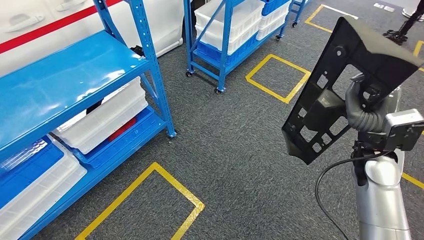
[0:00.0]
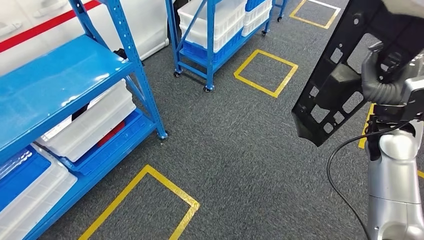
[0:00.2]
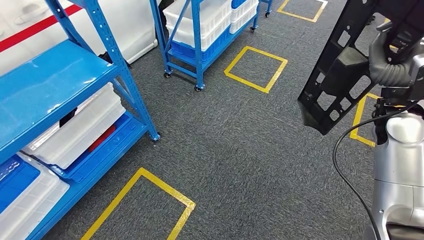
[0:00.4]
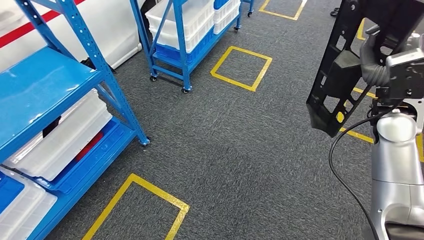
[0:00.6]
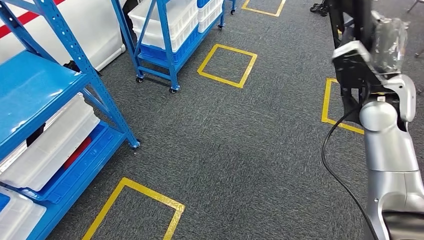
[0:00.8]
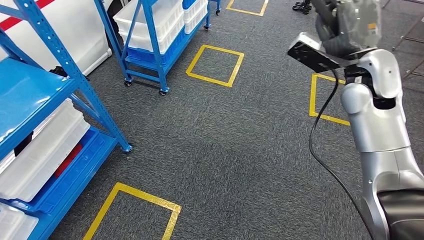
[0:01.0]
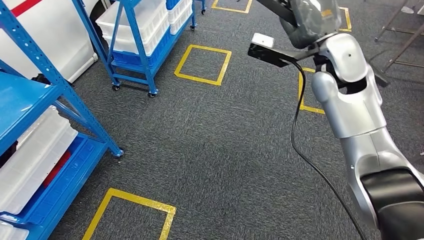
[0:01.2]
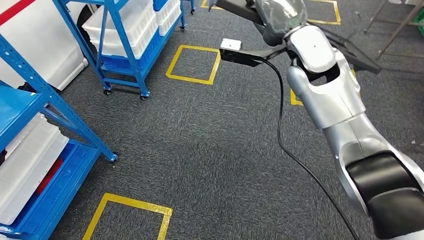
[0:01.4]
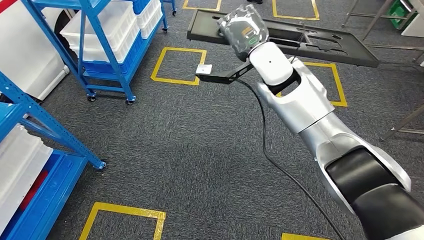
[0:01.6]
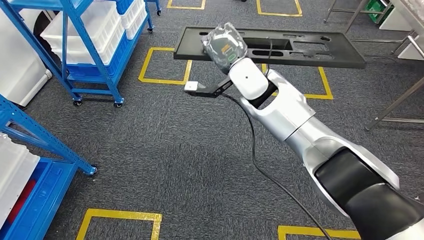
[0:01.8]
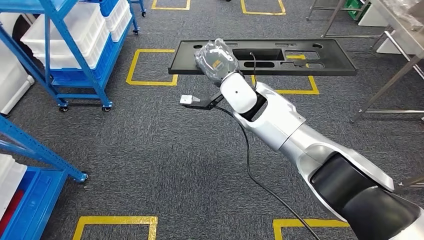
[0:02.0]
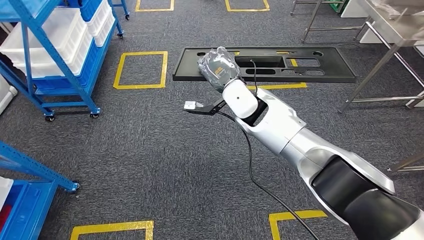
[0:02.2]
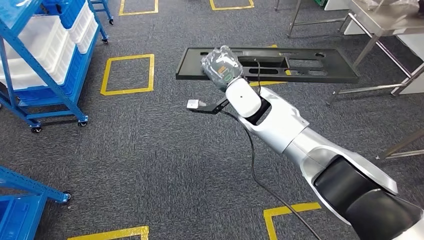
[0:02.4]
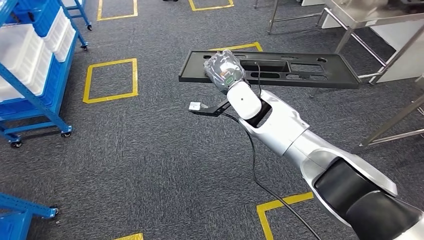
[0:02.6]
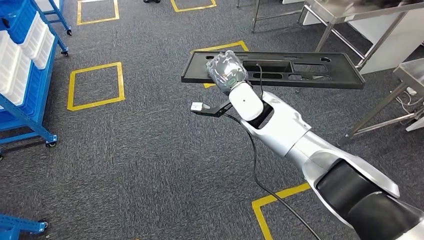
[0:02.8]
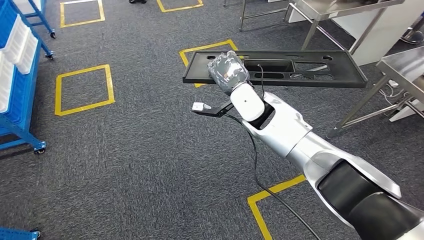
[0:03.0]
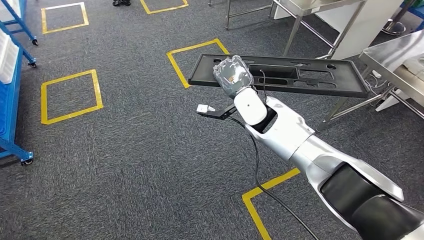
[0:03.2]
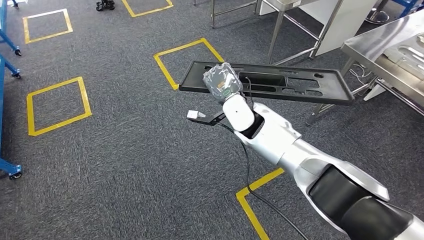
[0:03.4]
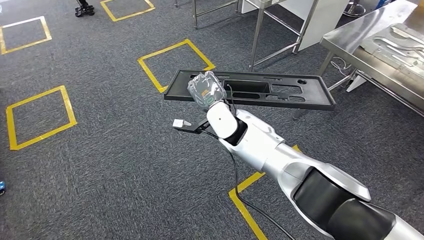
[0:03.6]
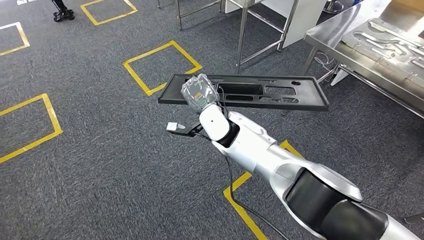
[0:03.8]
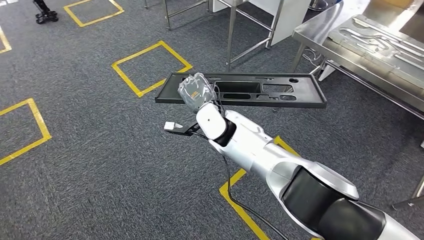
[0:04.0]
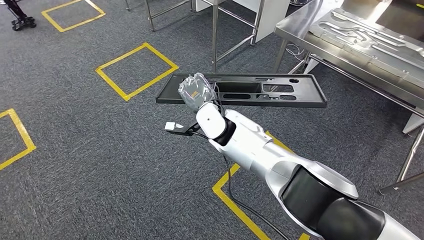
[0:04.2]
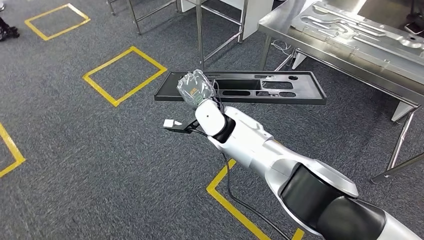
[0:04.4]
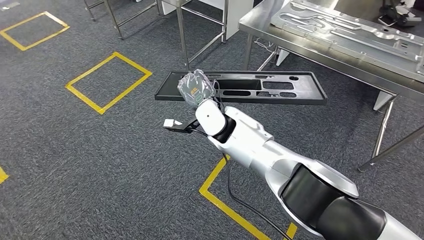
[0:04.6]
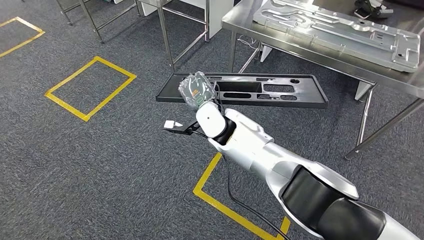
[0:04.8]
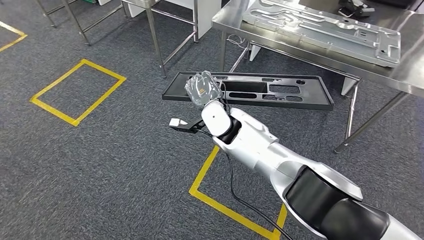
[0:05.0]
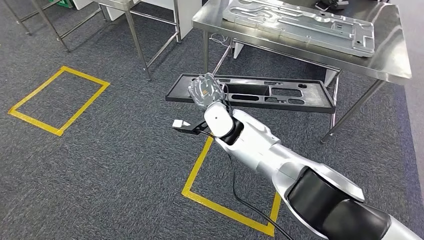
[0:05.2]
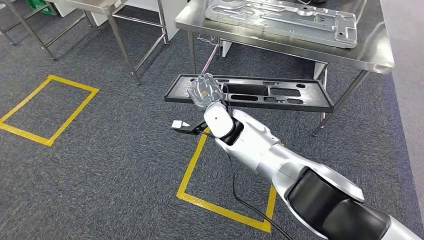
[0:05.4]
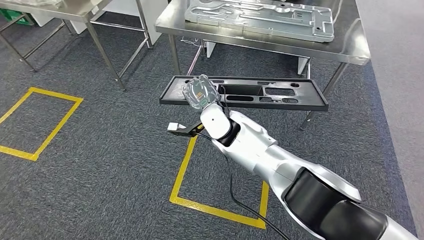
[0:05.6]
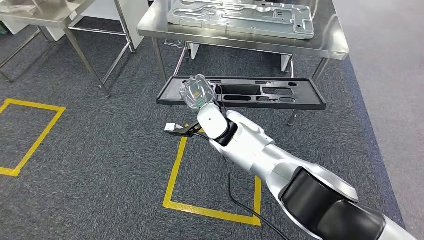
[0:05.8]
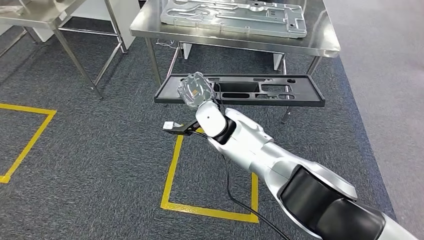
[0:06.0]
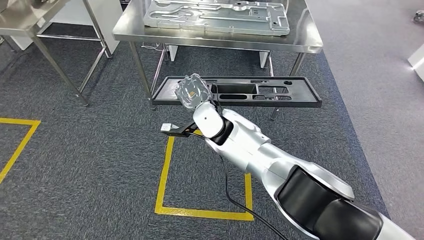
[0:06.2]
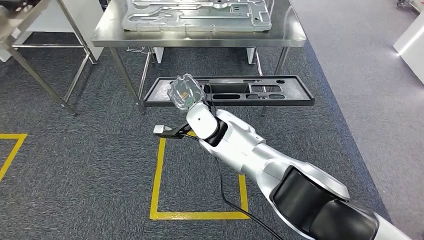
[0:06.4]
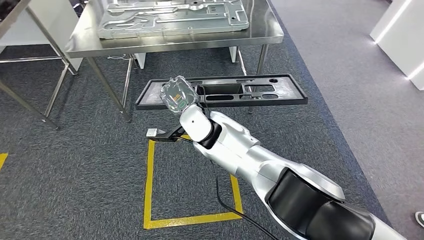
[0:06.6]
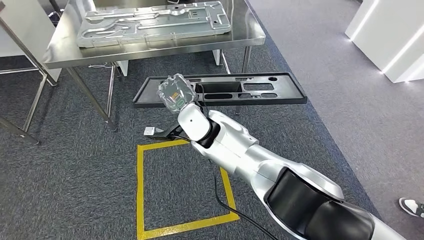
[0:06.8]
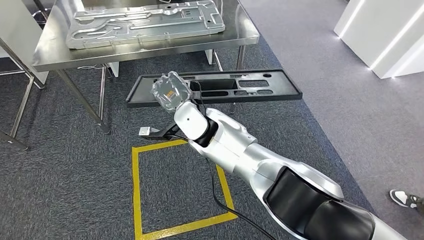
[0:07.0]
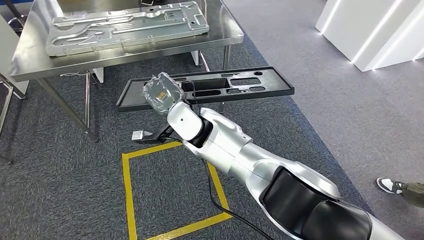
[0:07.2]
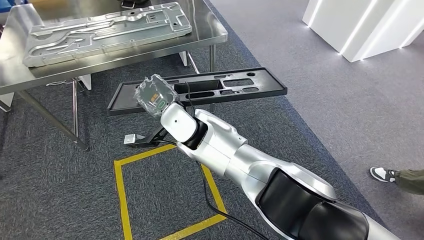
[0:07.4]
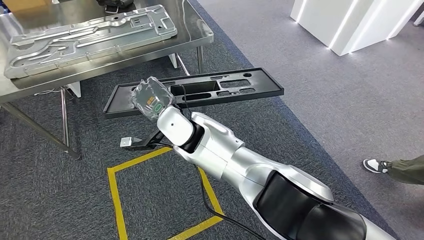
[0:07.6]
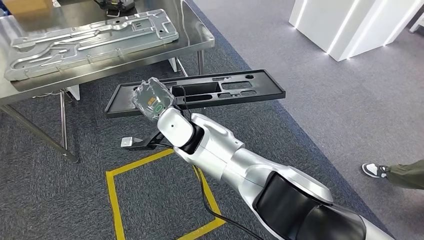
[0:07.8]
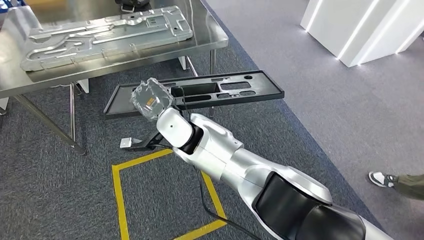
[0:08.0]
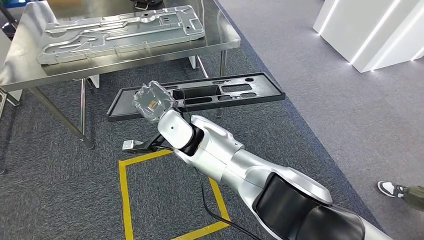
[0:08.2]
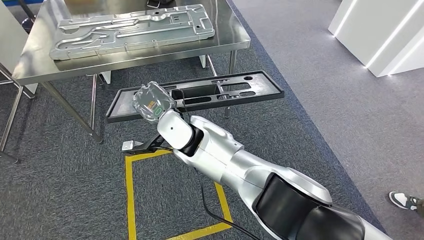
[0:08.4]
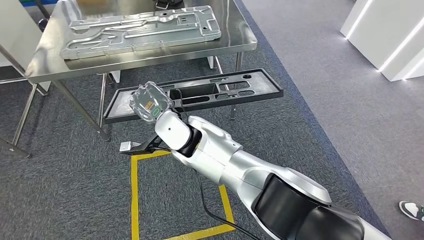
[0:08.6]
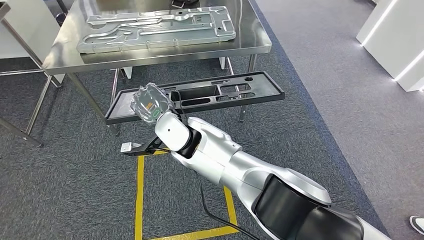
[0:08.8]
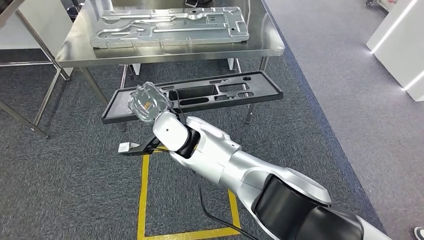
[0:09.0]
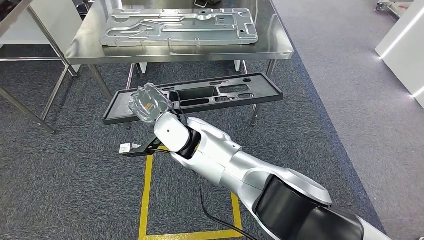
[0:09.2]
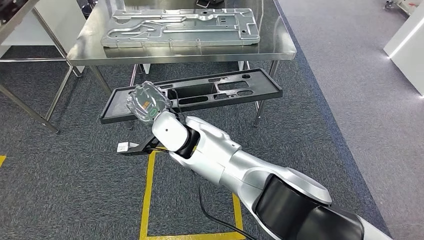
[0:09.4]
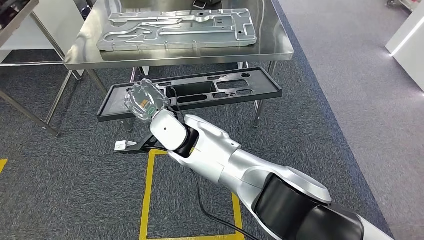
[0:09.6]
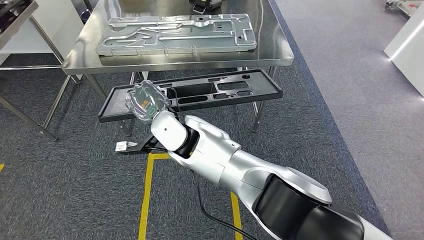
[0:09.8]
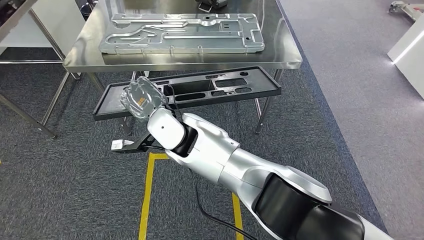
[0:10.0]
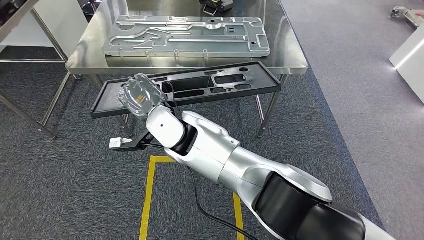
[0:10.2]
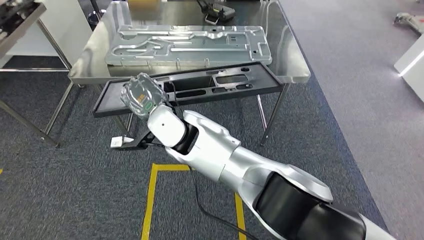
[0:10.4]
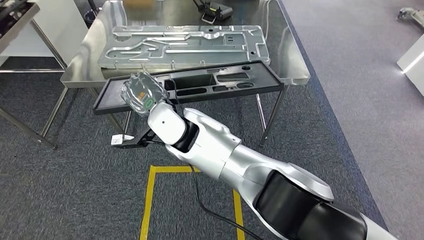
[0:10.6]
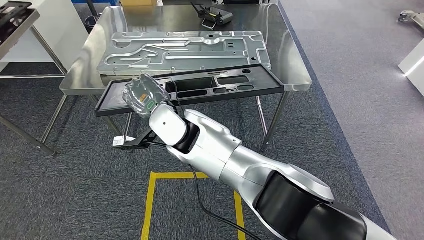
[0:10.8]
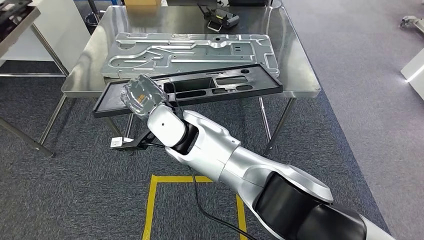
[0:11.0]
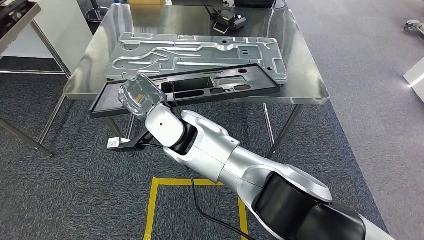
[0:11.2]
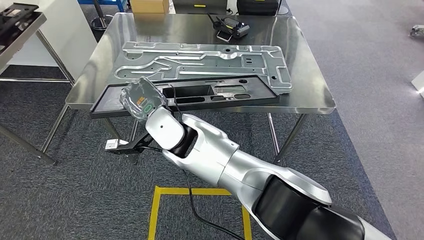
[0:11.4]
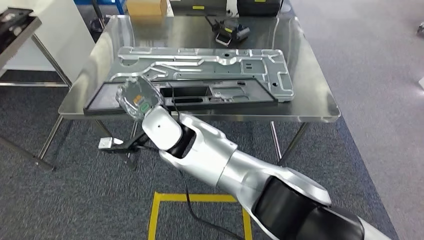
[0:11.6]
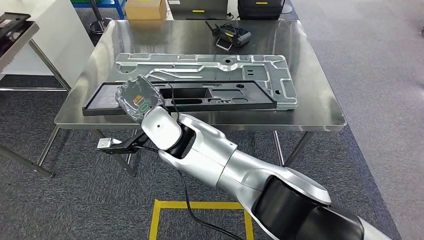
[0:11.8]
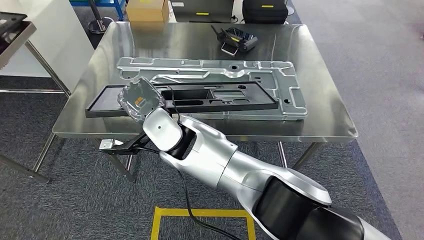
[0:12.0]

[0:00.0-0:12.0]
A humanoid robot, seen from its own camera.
Step, 0:00.6 to 0:10.4: Move the large material to the workbench.

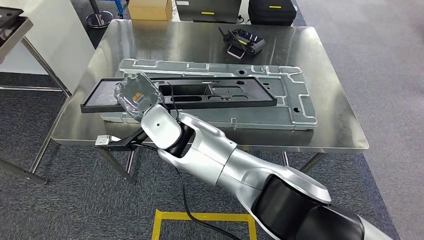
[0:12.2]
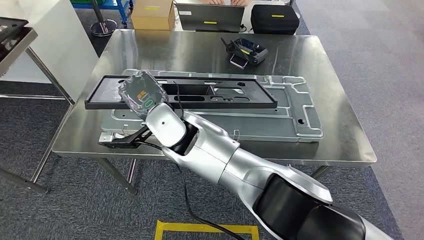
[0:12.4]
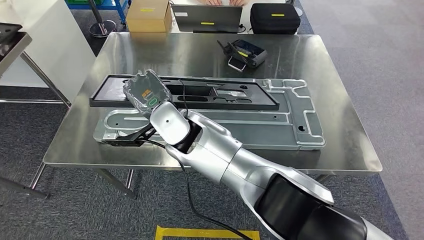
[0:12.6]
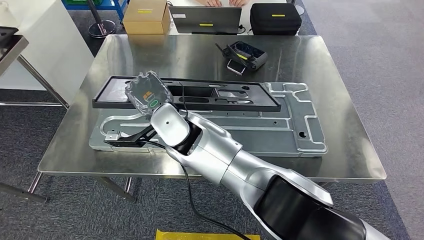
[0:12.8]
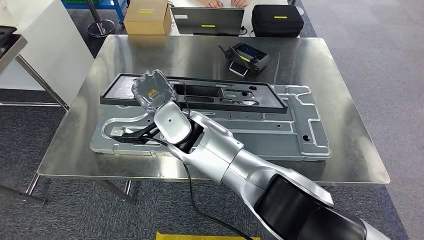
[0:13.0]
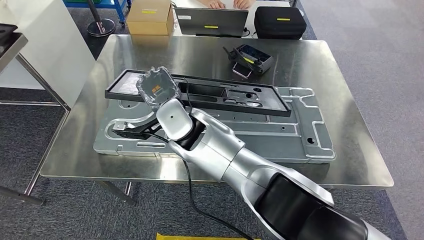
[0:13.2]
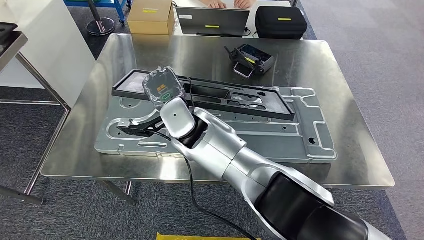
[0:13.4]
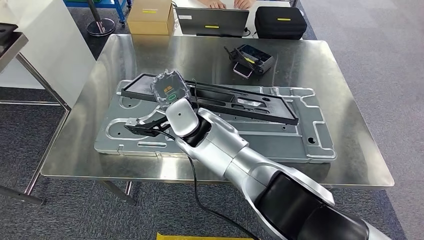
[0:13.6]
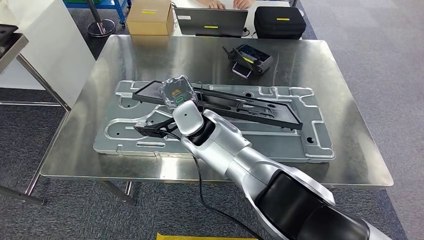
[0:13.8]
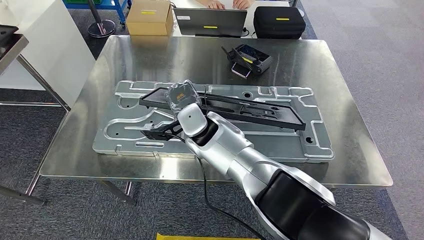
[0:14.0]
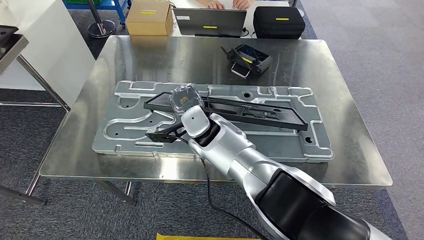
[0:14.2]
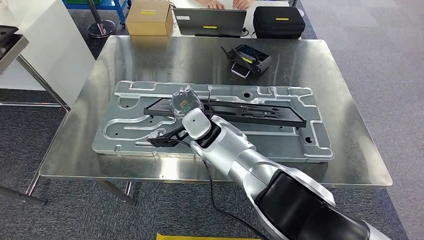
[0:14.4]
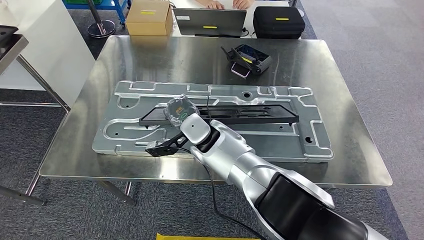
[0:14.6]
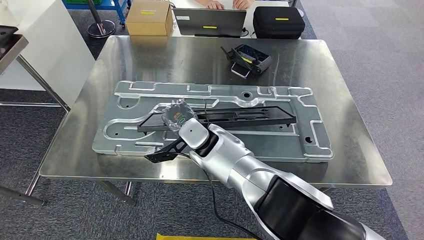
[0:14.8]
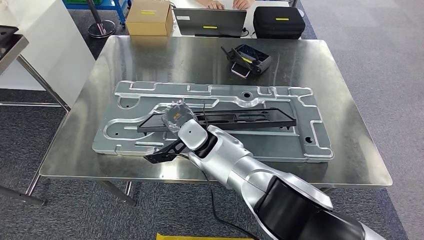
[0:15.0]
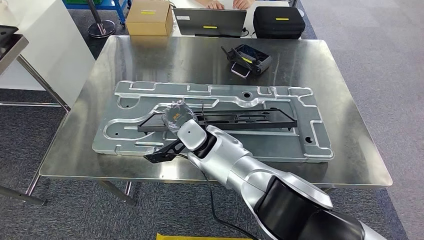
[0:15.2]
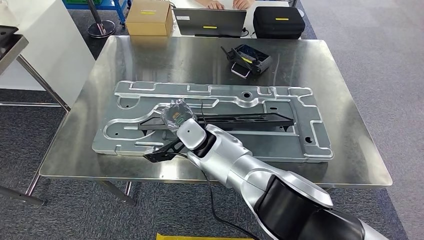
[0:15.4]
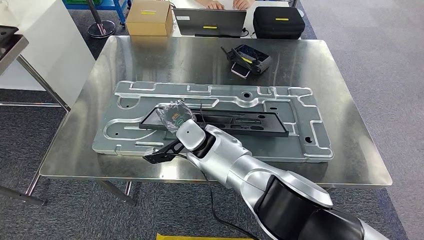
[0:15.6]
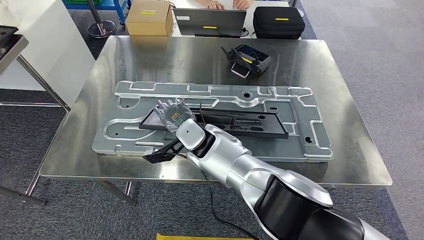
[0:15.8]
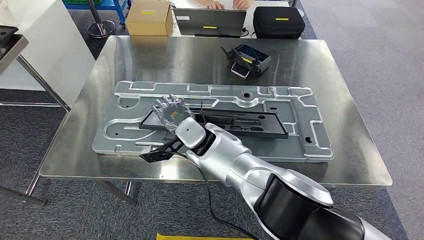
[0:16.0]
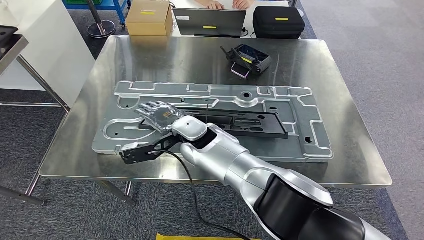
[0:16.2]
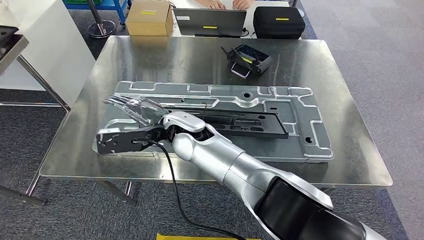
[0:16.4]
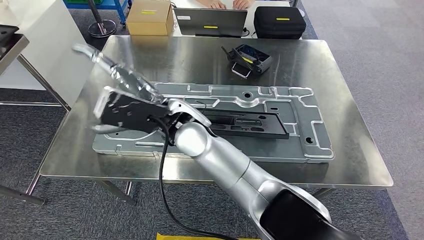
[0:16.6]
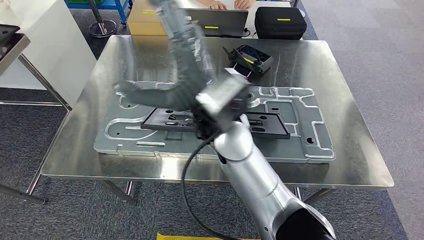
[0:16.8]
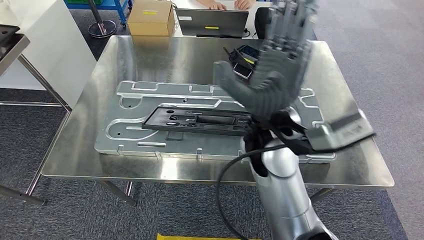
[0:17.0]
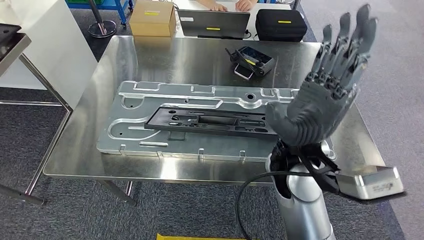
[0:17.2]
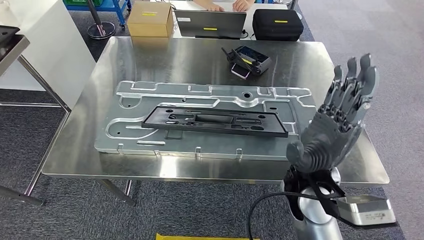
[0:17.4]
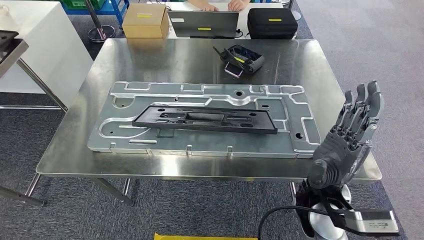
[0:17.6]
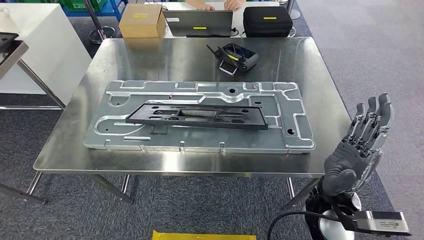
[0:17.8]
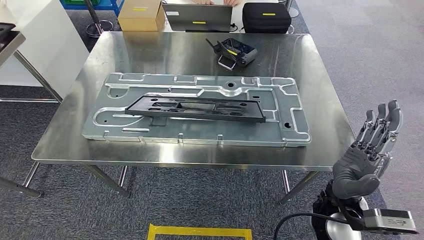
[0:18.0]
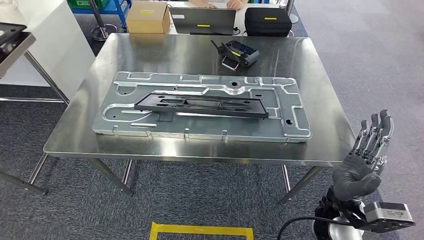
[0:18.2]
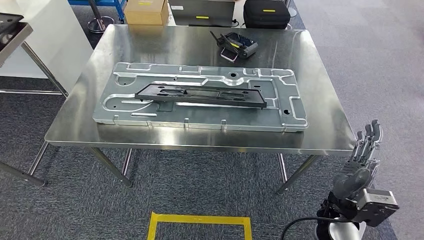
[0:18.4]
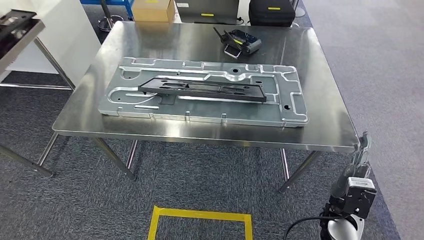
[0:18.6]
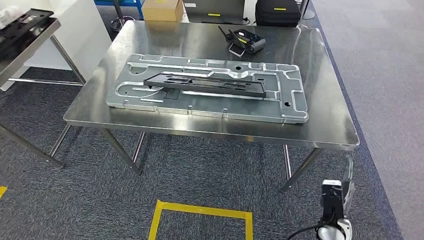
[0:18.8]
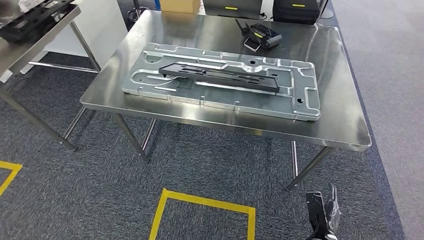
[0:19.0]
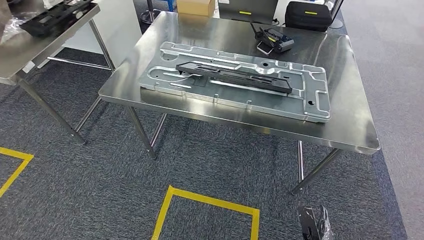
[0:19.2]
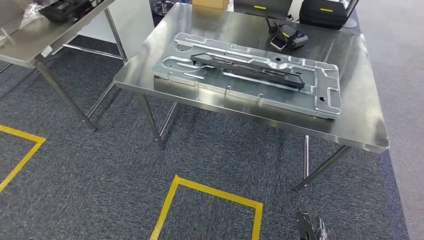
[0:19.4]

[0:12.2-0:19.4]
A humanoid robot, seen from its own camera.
0:13.6 to 0:15.0: The right hand is displaced downward by about 5 cm.
0:15.0 to 0:16.6: The right hand heads upward and backward, covering about 15 cm.
